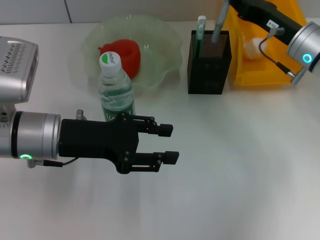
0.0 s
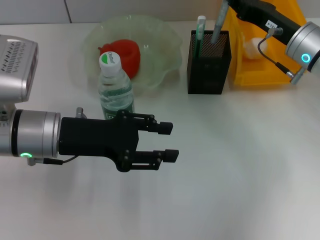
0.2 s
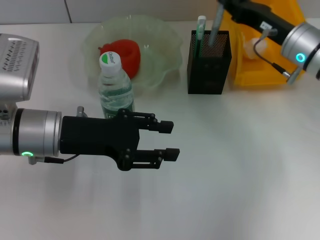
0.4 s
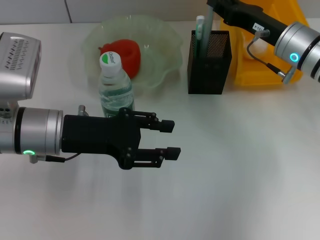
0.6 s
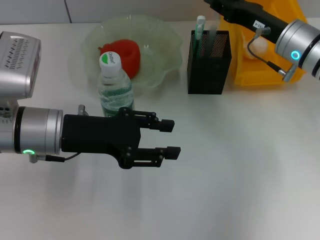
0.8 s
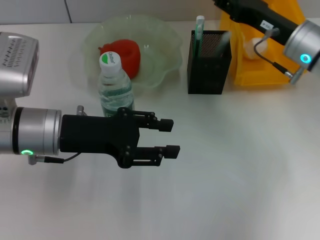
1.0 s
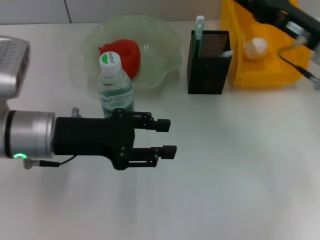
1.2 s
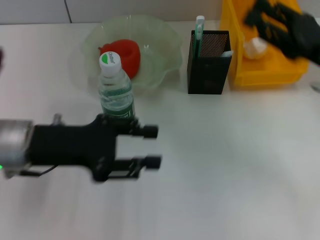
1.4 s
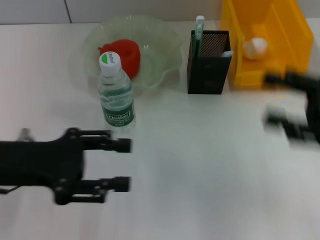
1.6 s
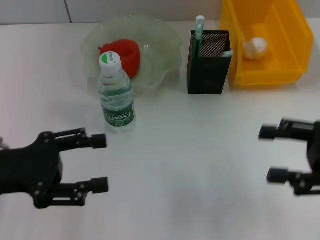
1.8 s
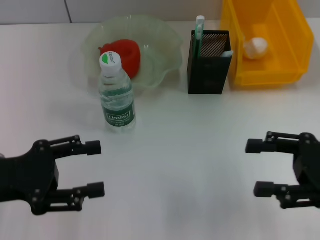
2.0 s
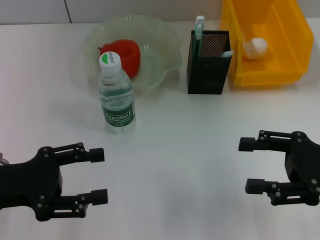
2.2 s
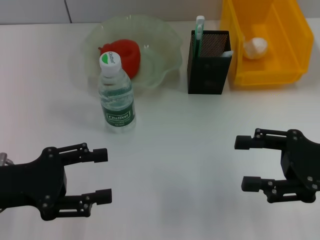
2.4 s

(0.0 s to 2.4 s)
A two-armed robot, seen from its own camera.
0.0 s - 1.2 s: The right gripper moves approximately 5 cm, and opens.
1.2 s - 2.4 s: The right gripper is displaced backward by about 10 cm, and opens its fingers. The left gripper shifts about 10 cm to the left and backward.

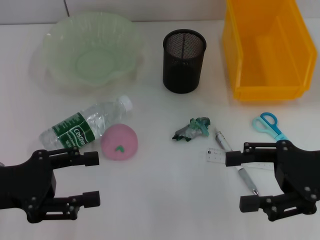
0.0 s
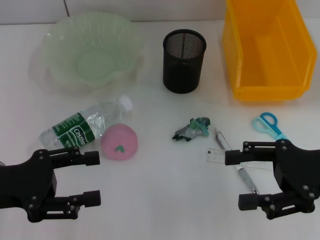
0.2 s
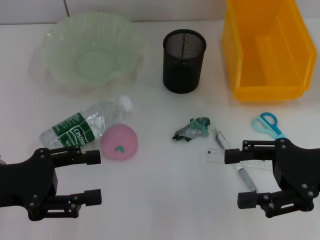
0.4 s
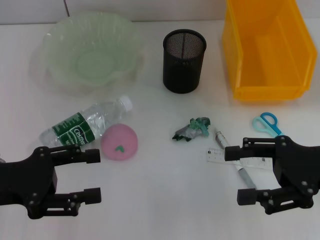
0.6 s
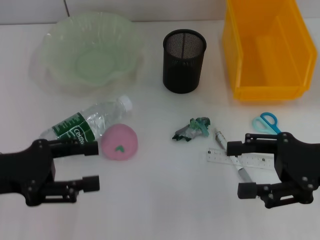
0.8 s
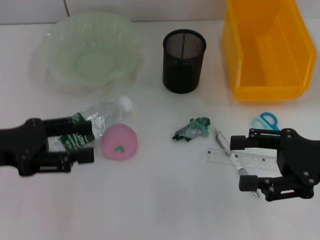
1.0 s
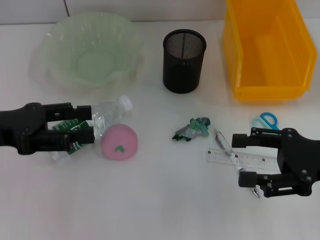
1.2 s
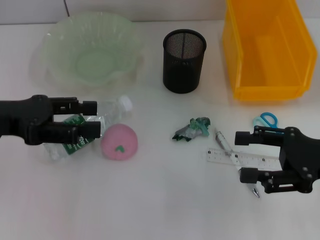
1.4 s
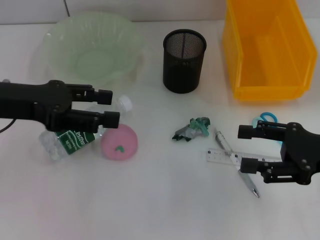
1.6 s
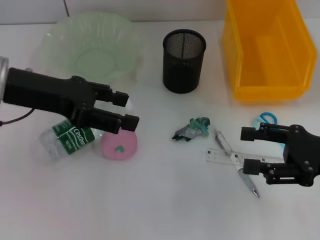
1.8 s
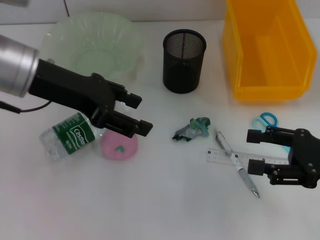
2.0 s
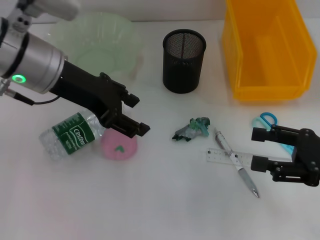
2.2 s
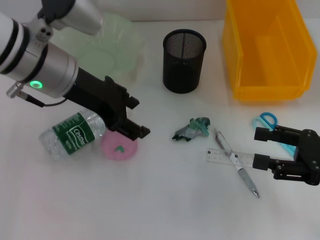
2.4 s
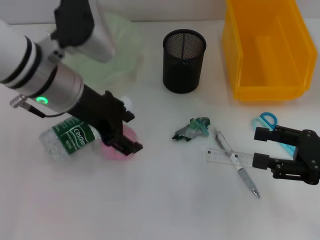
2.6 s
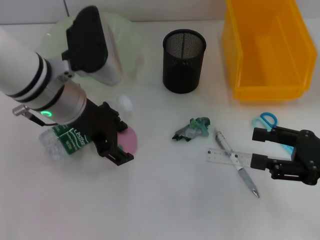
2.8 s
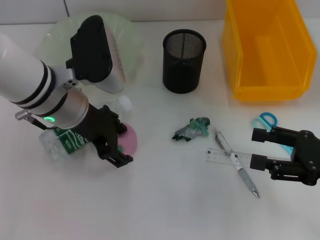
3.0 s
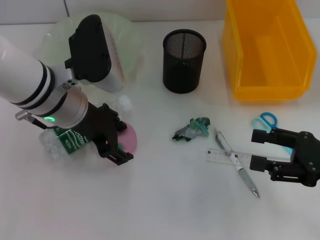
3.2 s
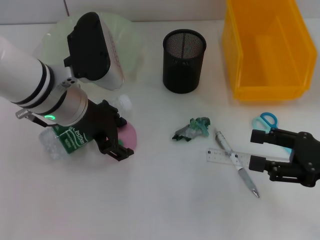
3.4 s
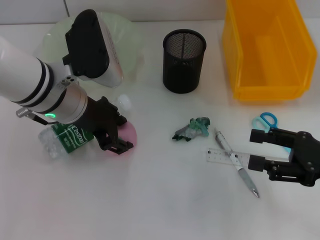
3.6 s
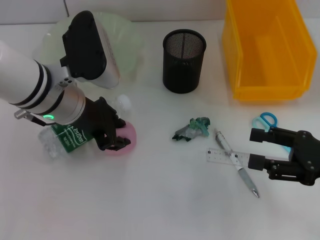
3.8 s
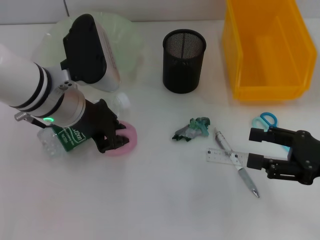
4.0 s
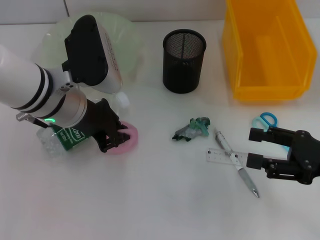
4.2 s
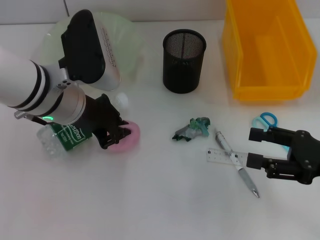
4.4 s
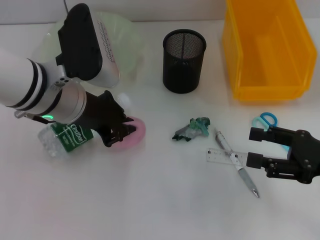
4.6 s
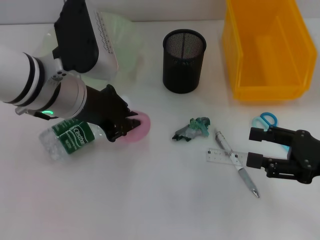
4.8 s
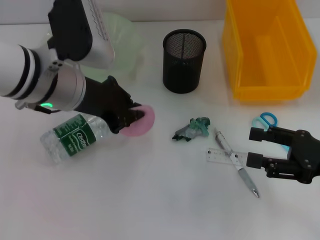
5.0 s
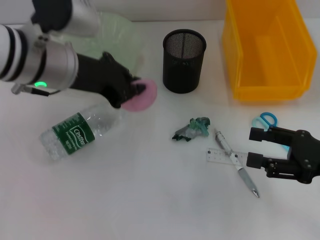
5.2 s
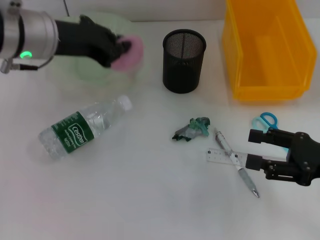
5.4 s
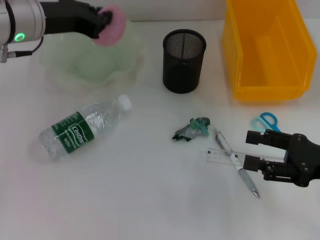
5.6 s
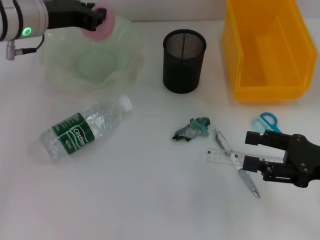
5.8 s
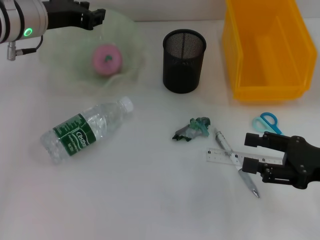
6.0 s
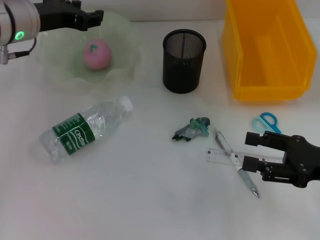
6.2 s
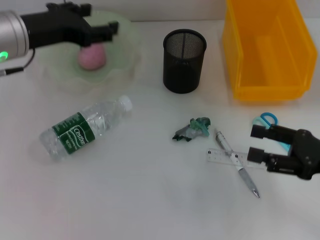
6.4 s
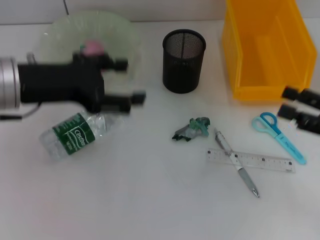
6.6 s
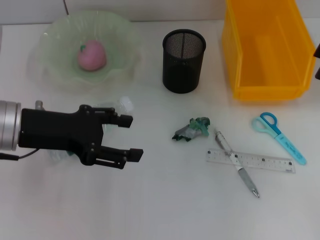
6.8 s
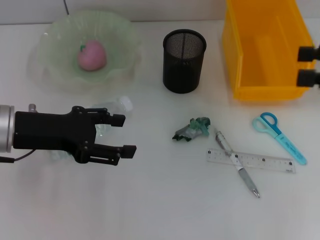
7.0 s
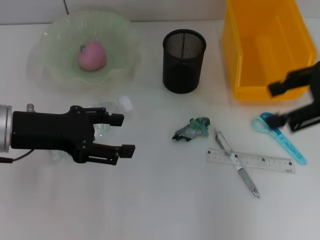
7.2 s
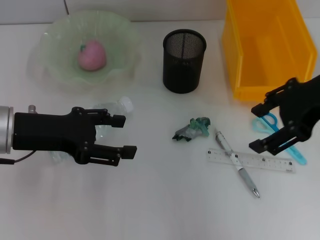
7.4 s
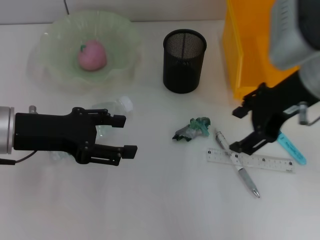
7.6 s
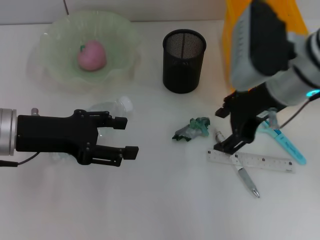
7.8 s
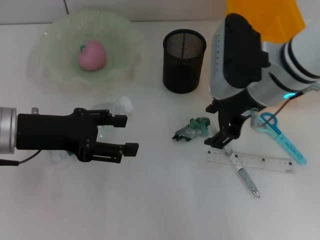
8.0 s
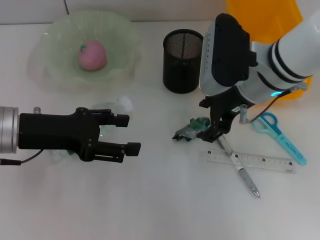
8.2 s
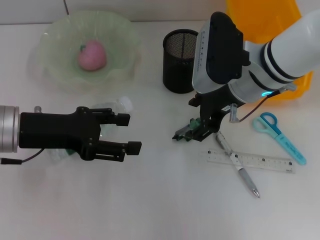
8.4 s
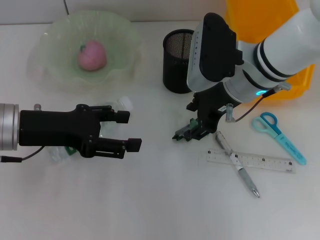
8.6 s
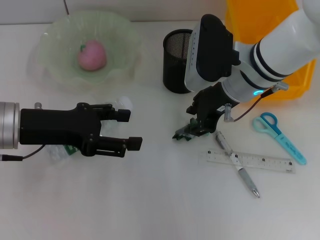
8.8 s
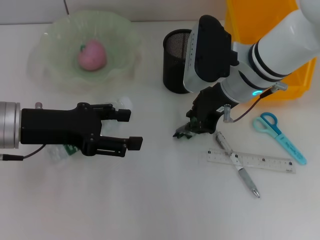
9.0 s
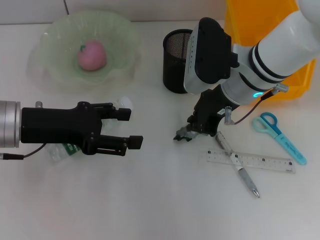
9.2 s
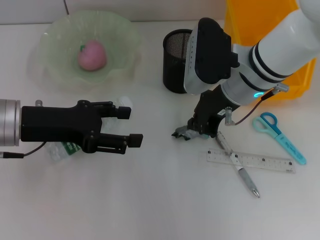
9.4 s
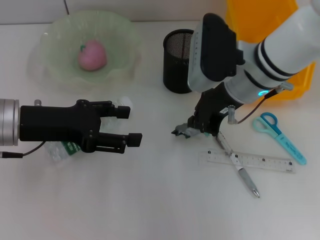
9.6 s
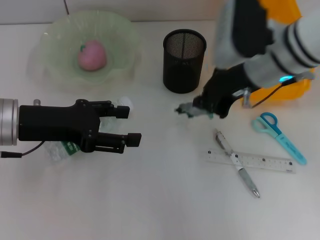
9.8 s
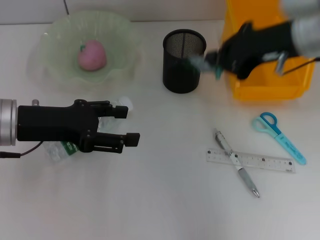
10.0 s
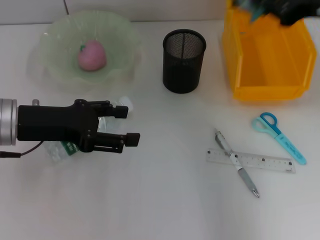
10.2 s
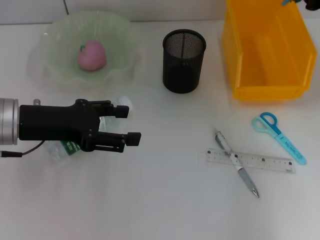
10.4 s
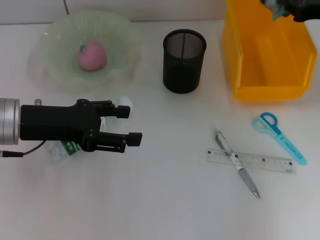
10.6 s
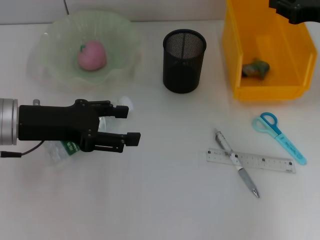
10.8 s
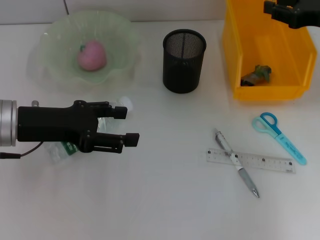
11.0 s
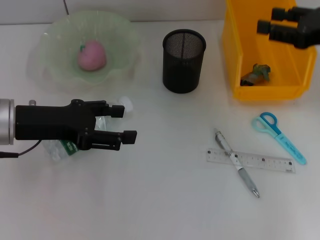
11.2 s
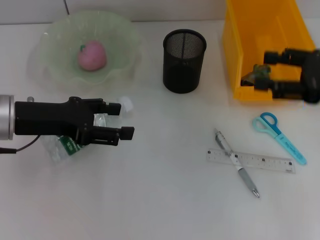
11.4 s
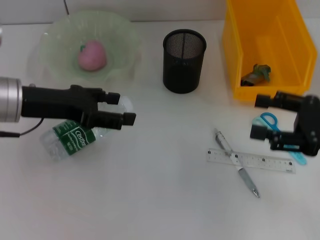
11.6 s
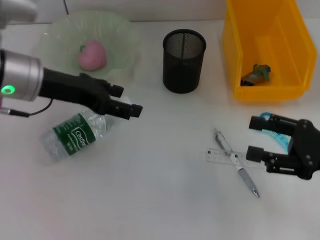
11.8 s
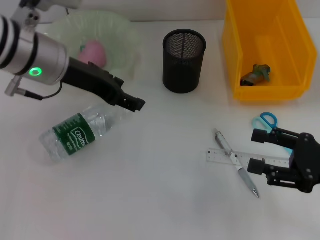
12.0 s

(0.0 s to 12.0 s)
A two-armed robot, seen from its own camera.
Step, 0.0 s - 4.2 s: Grab the peach with the left hand.
Step, 4.4 s - 6.4 s: Place the peach into the fruit bowl with the left hand.
Step, 6.6 s - 9.2 s: Grab the plastic with the right hand.
Step, 9.4 s - 11.0 s: Place the plastic into the trash can with the right hand.
0.0 s - 1.6 s: The left gripper is displaced upward and forward by roughly 10 cm.
1.6 s - 3.0 s: The left gripper travels to the right by roughly 10 cm.
3.0 s - 4.4 s: The left gripper closes its fingers.
4.4 s - 6.0 s: The left gripper moves forward and to the left, approximately 10 cm.
6.0 s - 7.6 s: The right gripper is displaced upward, to the left and forward by some 20 cm. The left gripper goes approximately 10 cm backward, and opens up.
7.6 s - 9.0 s: The right gripper moves downward and to the left, approximately 10 cm, and closes its fingers.
9.0 s - 10.4 s: The right gripper is displaced to the right by roughly 20 cm, and closes up.
10.4 s - 12.0 s: The left gripper travels forward, to the right and upward by approximately 10 cm, while the right gripper shifts roughly 20 cm backward and downward, and opens its fingers.

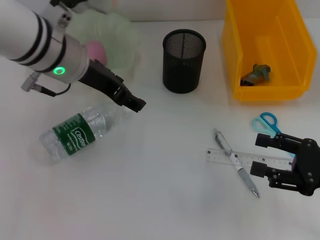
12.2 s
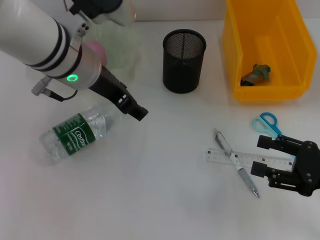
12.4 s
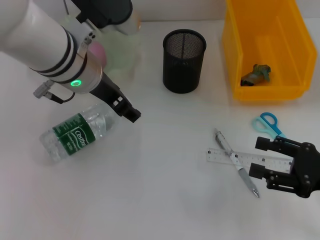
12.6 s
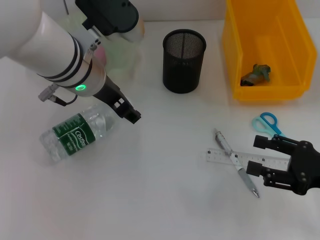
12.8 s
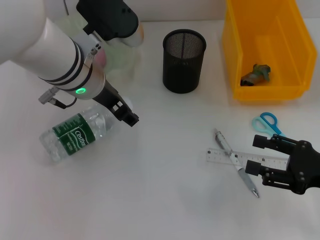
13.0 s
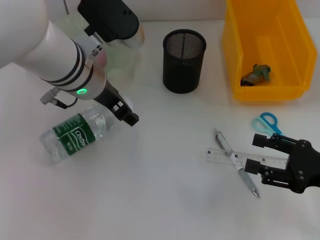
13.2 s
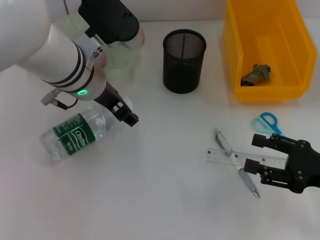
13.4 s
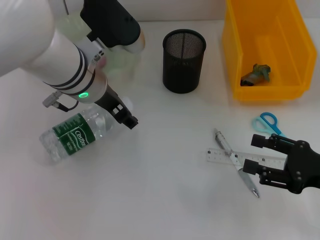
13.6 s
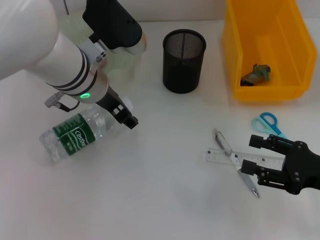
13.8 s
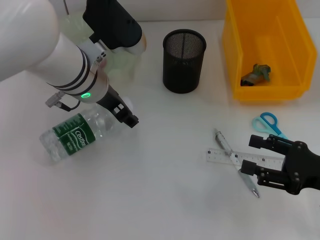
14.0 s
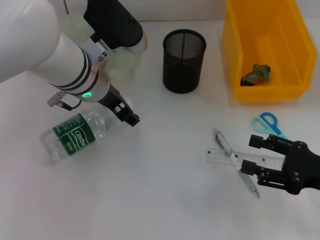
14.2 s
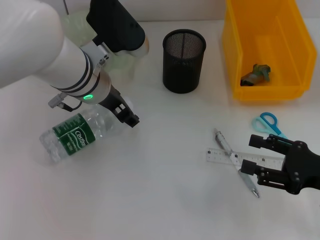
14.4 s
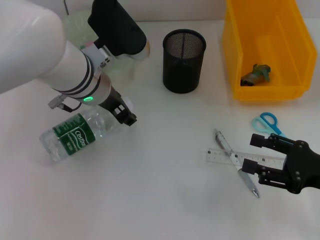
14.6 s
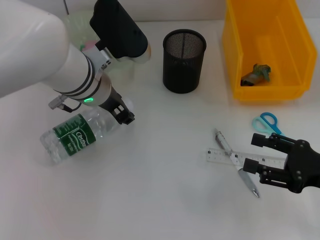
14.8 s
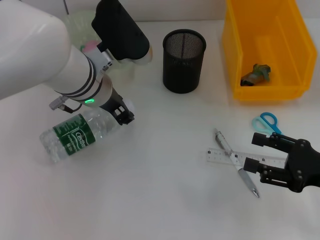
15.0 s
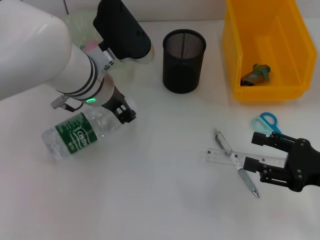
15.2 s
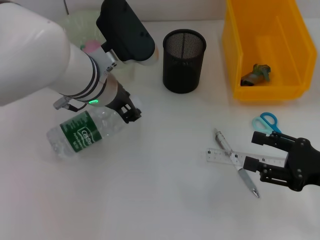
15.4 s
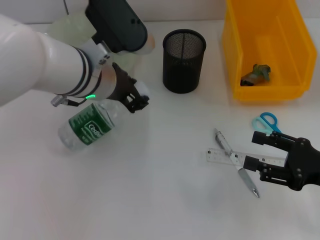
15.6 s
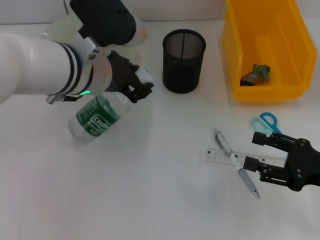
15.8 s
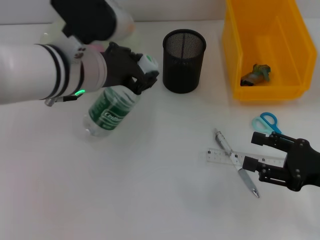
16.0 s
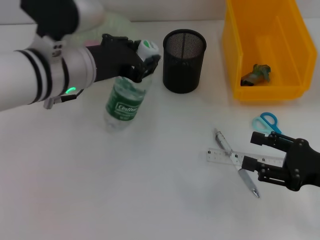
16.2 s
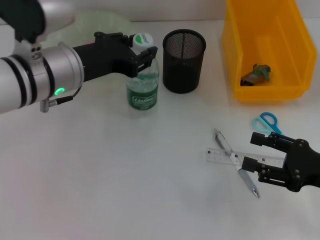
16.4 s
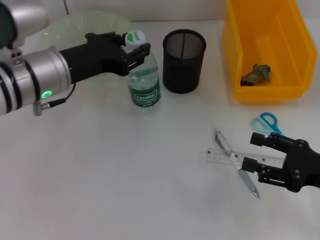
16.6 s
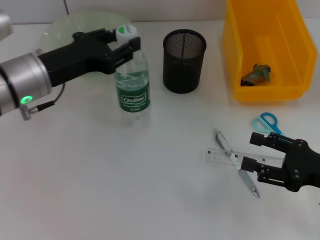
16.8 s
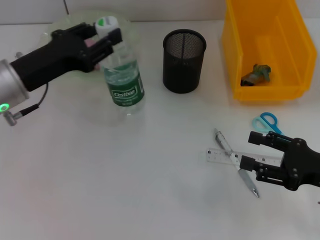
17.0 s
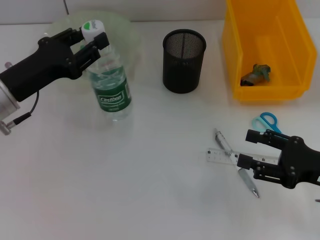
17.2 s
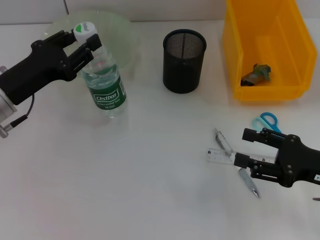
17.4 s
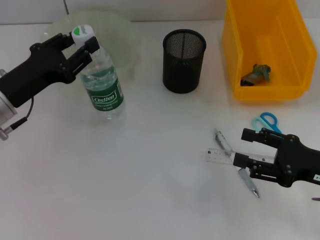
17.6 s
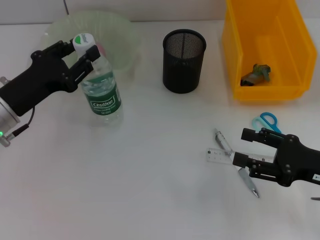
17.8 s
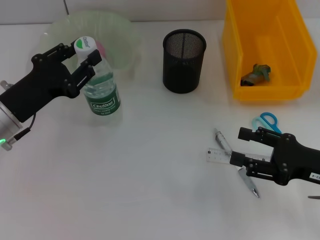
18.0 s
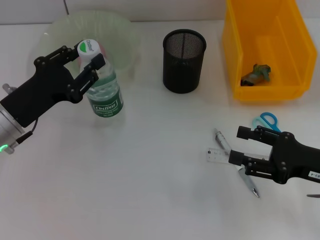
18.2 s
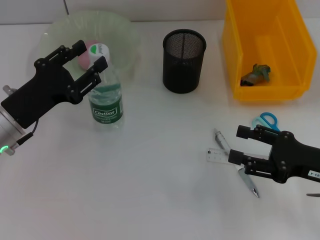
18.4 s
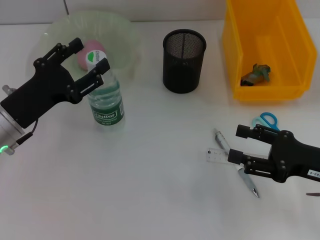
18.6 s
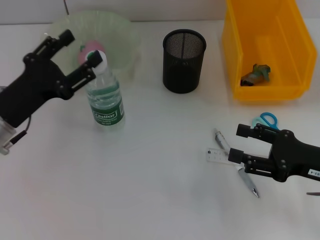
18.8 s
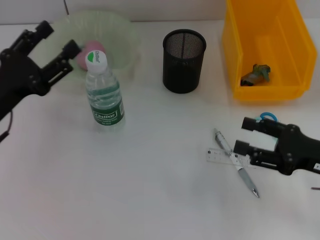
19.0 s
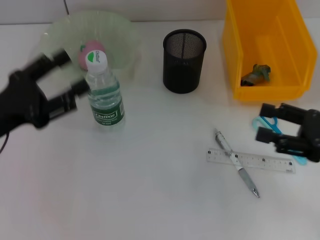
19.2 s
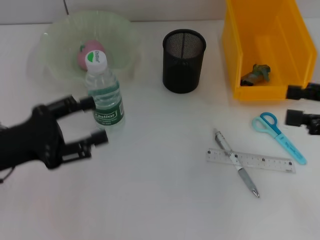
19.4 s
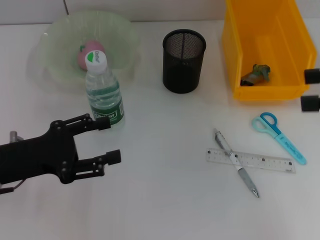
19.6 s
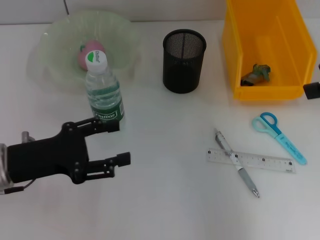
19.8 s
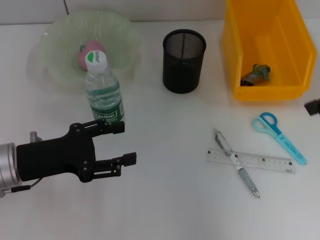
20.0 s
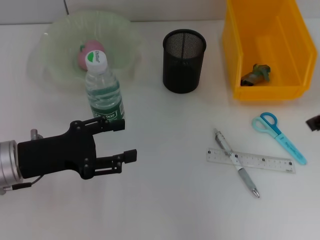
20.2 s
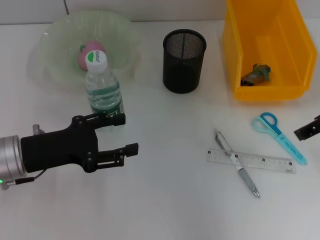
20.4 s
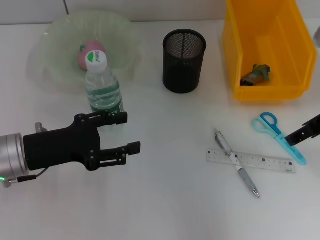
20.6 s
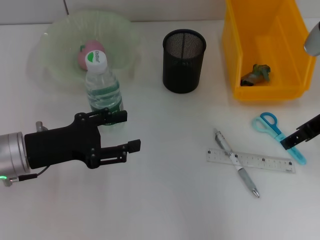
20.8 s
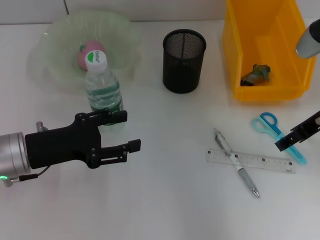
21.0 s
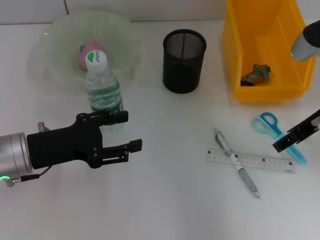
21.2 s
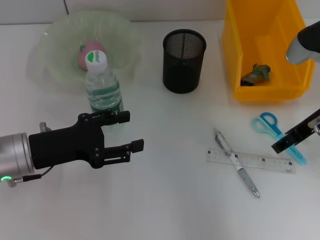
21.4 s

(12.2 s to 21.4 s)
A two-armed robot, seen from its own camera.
Step, 12.2 s - 14.8 s: Grab the water bottle with the left hand.
Step, 15.0 s - 18.6 s: Place the water bottle on the table with the left hand.
12.2 s - 13.8 s: The left gripper shifts by roughly 5 cm.
13.8 s - 15.2 s: The left gripper closes its fingers.
15.2 s - 16.8 s: The left gripper is displaced to the left by about 10 cm.
16.8 s - 18.4 s: The left gripper is displaced downward by some 5 cm.
18.4 s - 19.8 s: The left gripper opens. Meanwhile the right gripper heads upward, covering about 20 cm.
19.8 s - 21.4 s: The right gripper goes some 15 cm downward, to the left and forward.
